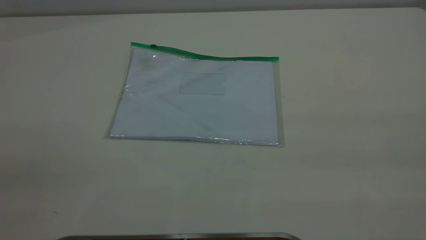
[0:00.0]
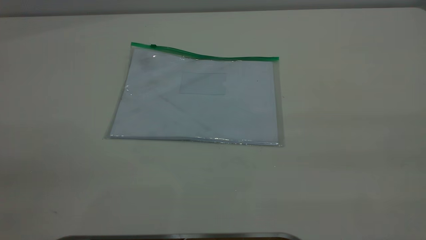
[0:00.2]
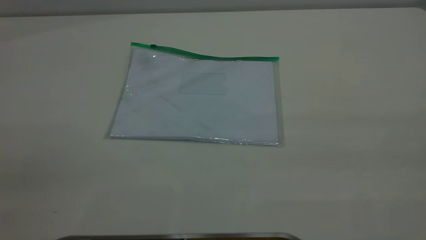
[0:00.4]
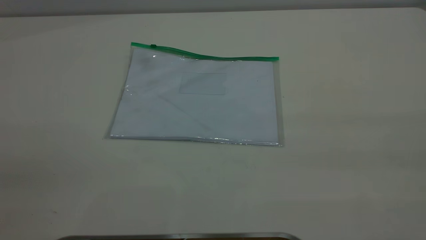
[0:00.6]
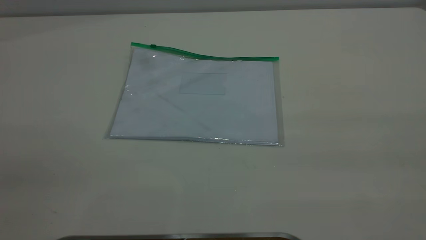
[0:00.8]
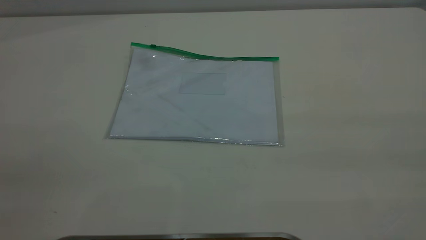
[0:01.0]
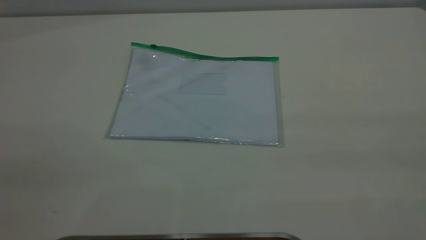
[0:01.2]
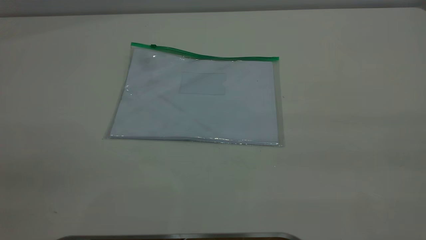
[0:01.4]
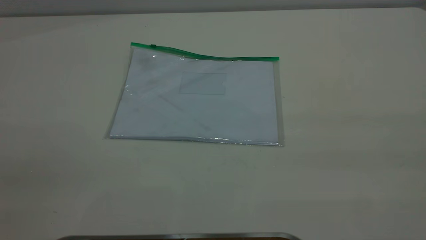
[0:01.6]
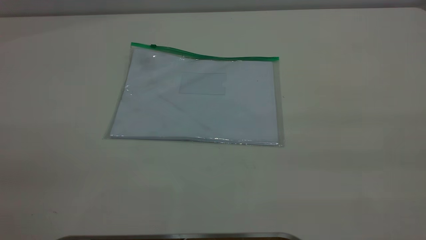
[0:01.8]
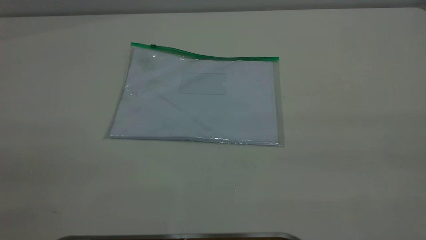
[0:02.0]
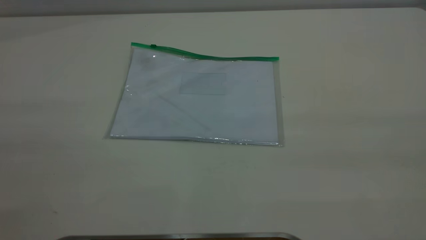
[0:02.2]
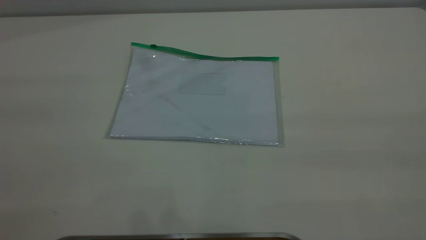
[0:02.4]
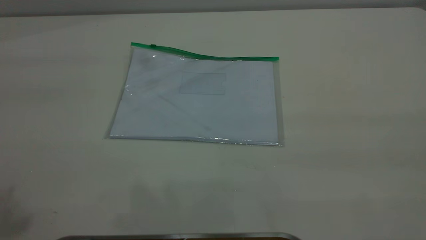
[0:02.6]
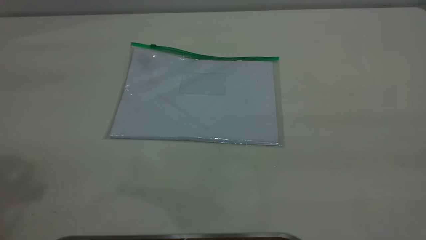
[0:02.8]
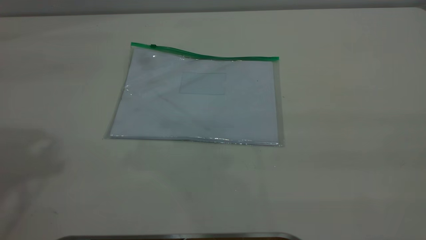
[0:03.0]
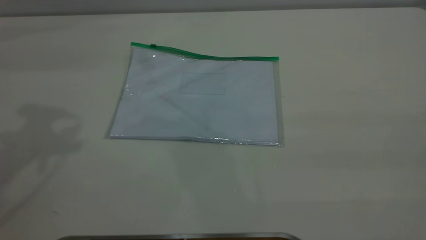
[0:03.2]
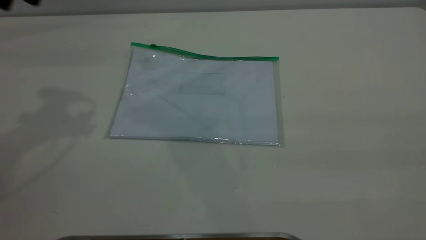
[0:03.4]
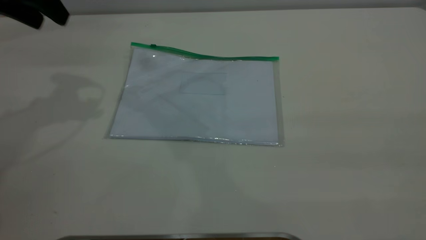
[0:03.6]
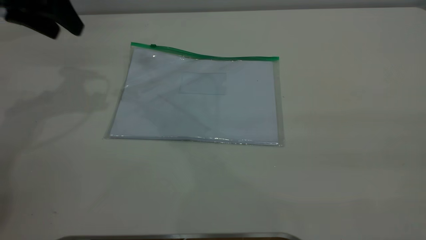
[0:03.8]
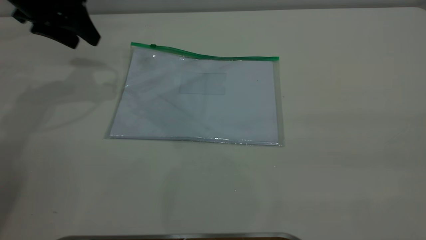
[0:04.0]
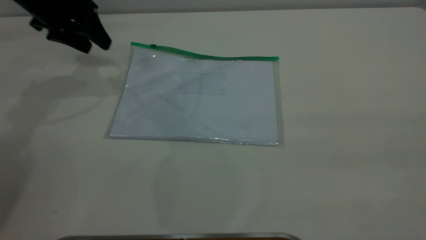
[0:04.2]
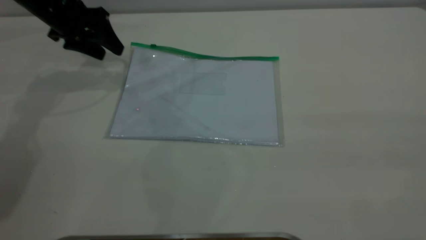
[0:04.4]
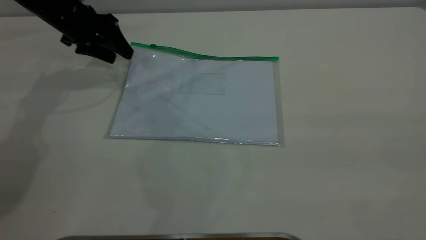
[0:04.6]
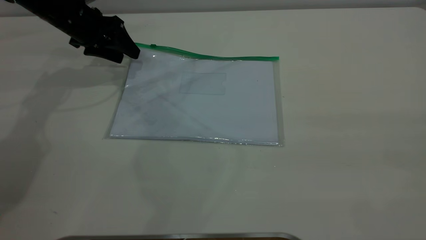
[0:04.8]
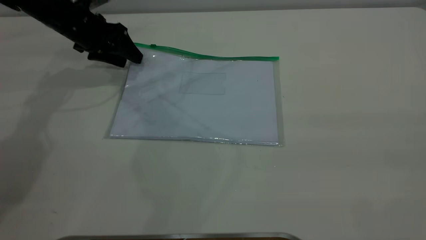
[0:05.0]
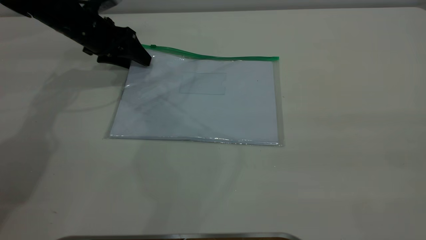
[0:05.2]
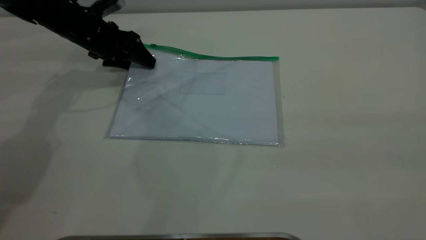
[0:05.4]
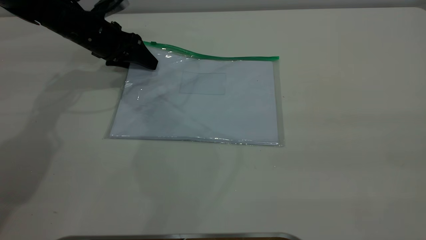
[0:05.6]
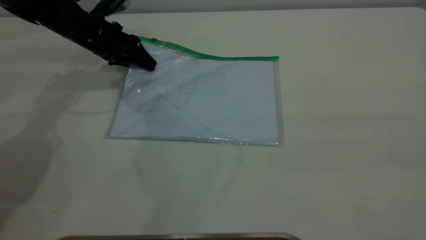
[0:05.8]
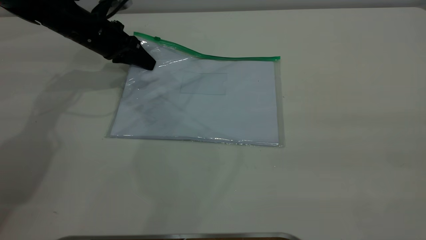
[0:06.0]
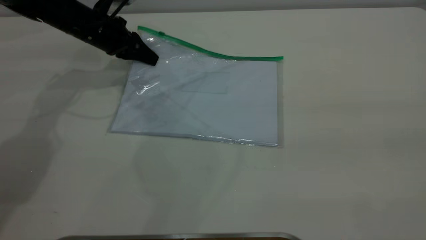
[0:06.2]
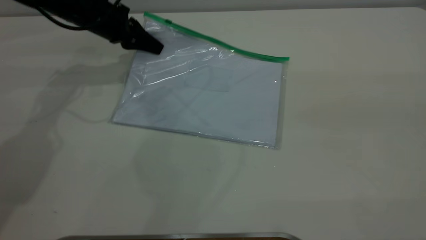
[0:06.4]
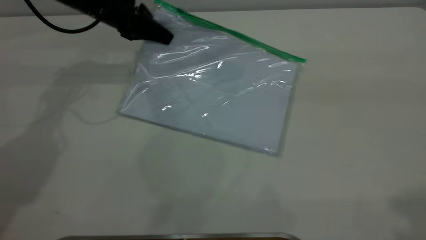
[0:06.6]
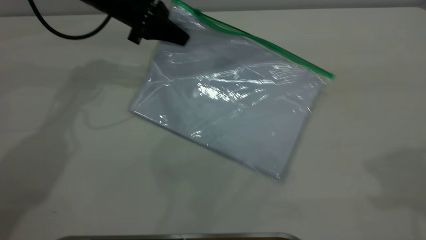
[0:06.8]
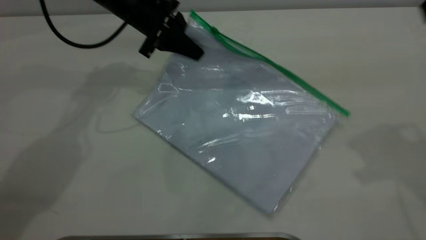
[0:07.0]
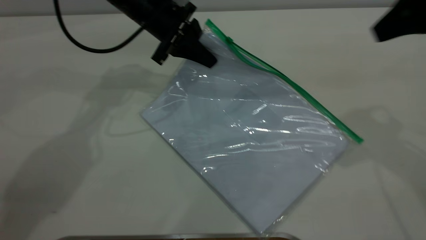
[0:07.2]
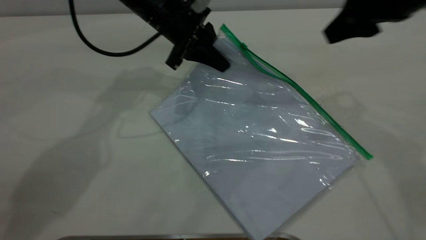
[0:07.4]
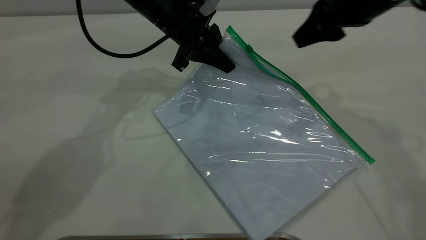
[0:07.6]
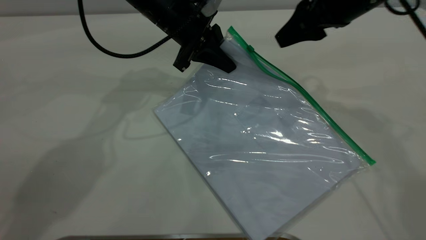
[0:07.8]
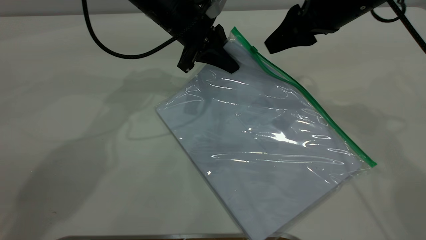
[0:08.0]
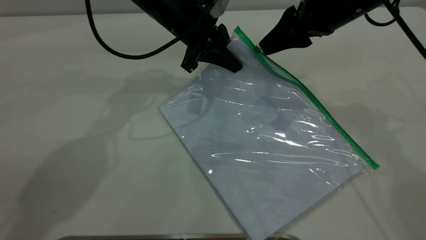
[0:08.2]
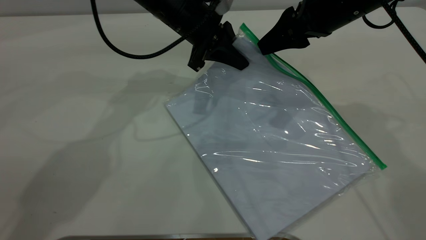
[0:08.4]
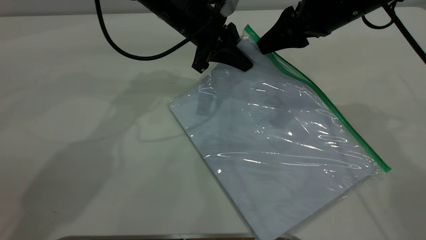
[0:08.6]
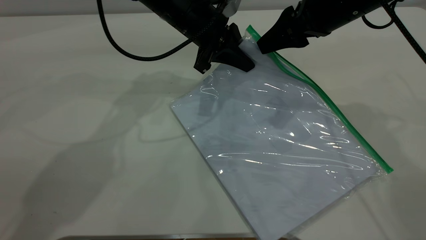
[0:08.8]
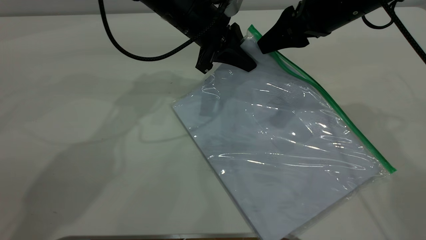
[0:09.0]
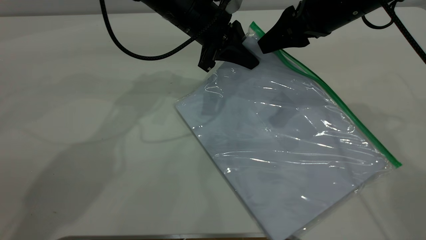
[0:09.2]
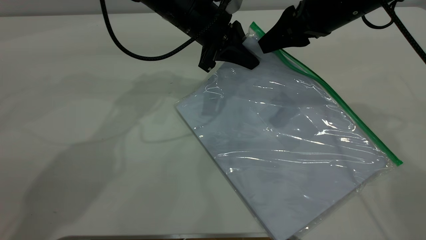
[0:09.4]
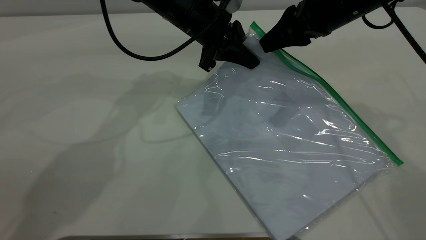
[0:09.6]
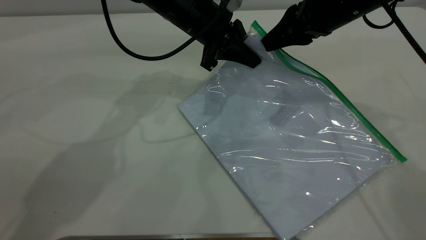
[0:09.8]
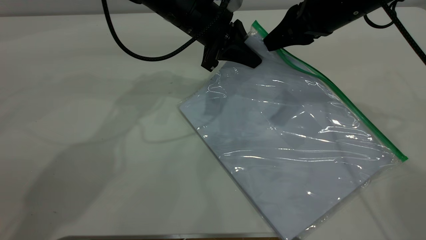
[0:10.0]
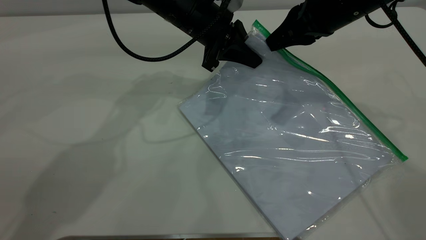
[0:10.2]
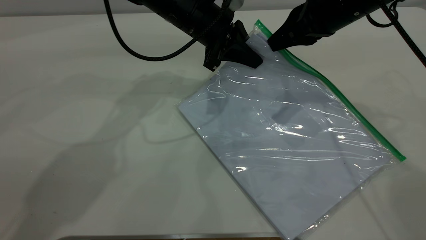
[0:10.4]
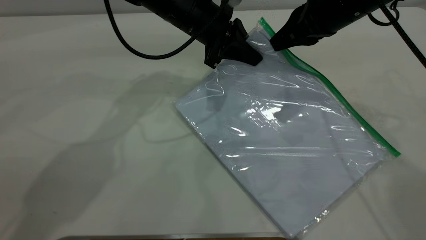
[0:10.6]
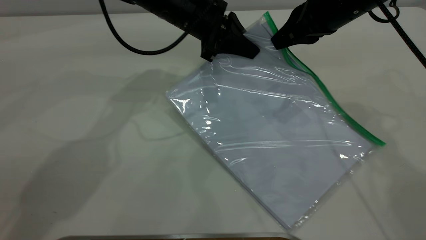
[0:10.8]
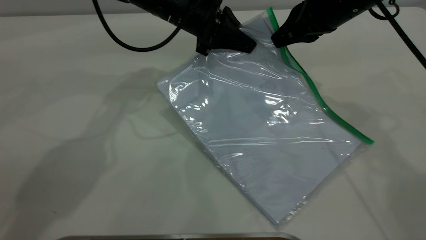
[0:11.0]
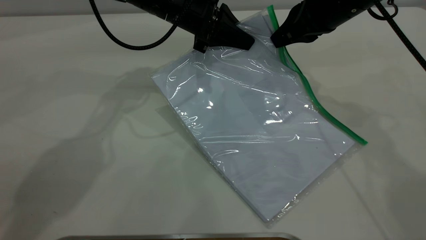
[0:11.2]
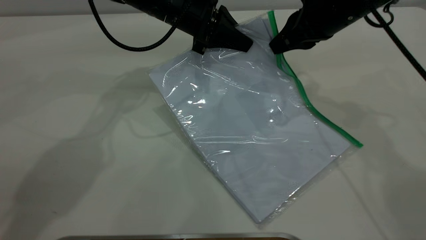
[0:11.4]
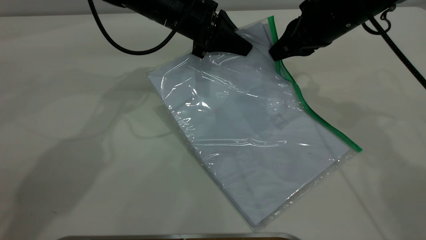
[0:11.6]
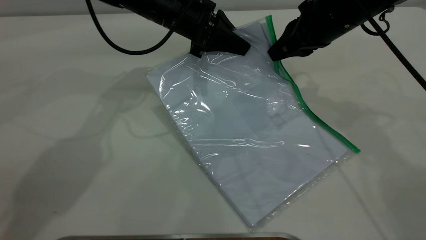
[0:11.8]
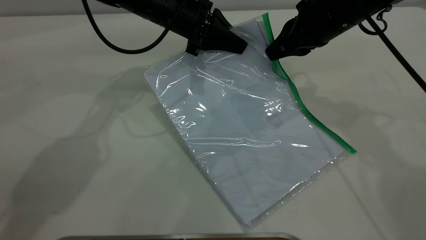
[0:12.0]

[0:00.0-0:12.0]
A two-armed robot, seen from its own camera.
Step, 0:00.0 to 0:06.6: Pick up the transparent plastic bag with the left gripper.
0:00.0 to 0:01.6: The two grippers keep their place.
0:03.0 to 0:04.4: The left gripper travels downward and forward by about 30 cm.
0:04.4 to 0:06.0: The left gripper shifts some 5 cm downward, and closes up.
0:06.0 to 0:07.6: The left gripper is displaced to the right by roughly 15 cm, while the right gripper heads forward and downward, covering some 40 cm.
0:07.6 to 0:09.0: There are only small adjustments of the grippers.
0:09.0 to 0:10.4: The right gripper closes up.
0:10.4 to 0:12.0: There are only small adjustments of the grippers.

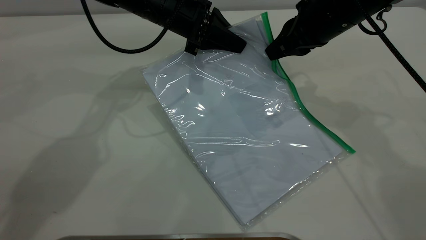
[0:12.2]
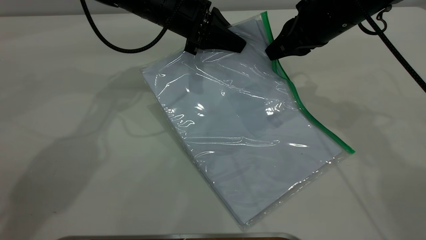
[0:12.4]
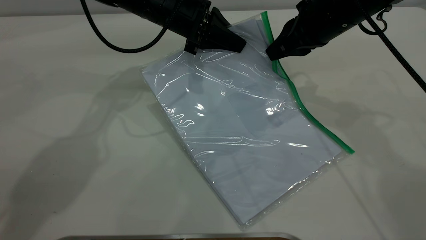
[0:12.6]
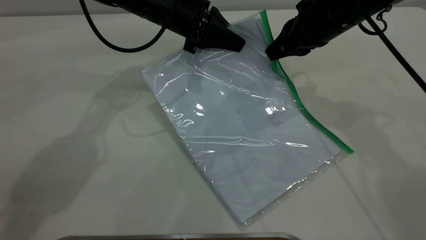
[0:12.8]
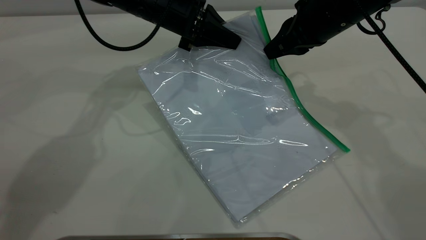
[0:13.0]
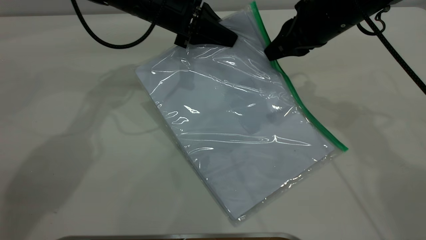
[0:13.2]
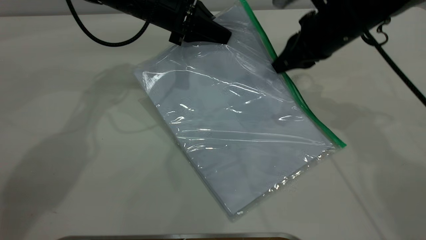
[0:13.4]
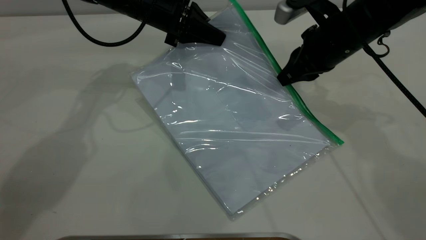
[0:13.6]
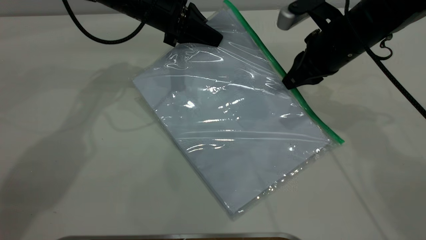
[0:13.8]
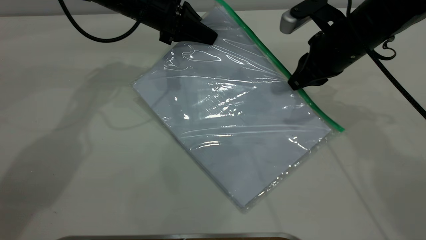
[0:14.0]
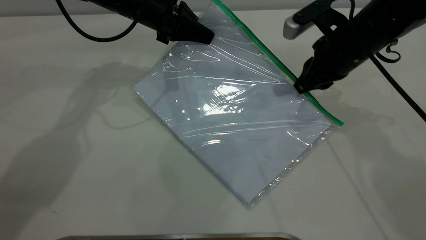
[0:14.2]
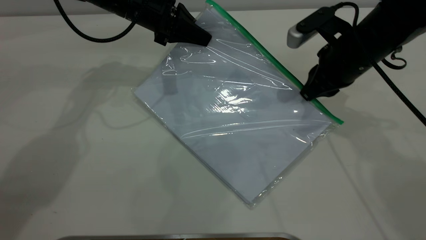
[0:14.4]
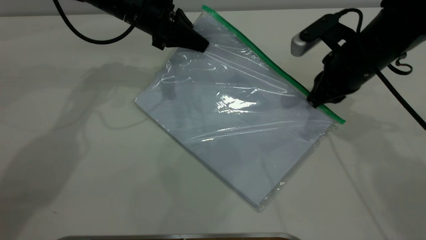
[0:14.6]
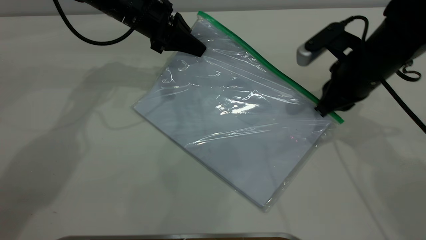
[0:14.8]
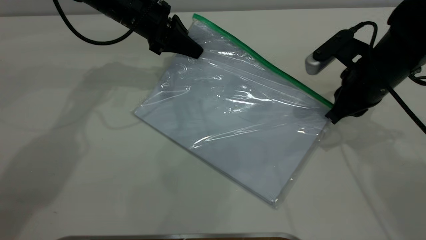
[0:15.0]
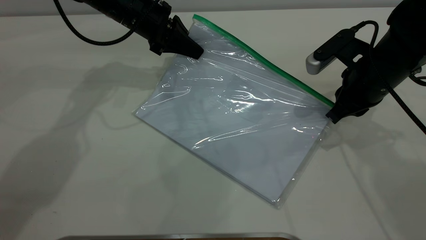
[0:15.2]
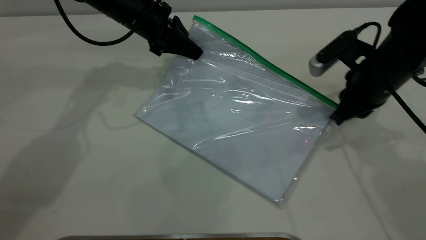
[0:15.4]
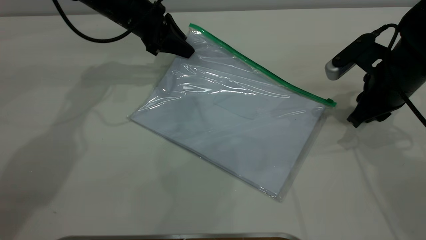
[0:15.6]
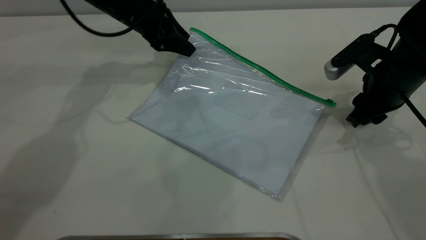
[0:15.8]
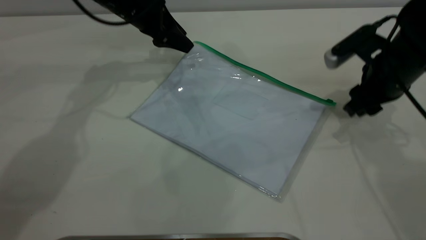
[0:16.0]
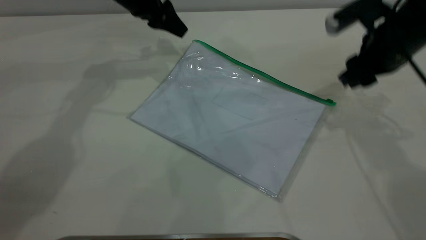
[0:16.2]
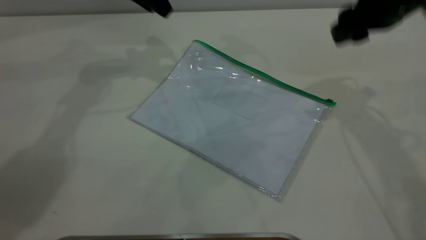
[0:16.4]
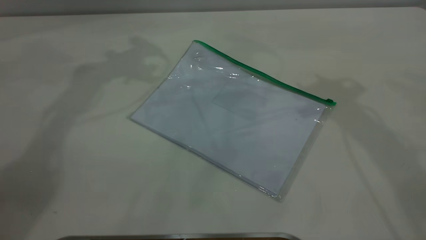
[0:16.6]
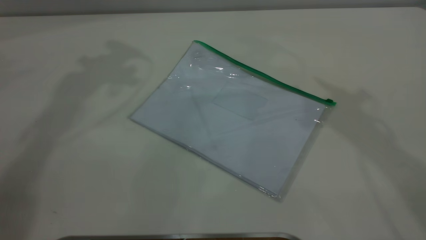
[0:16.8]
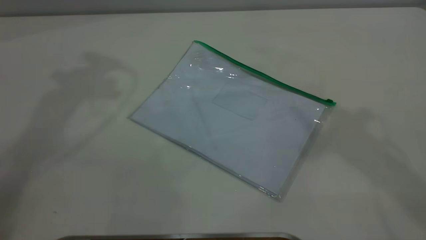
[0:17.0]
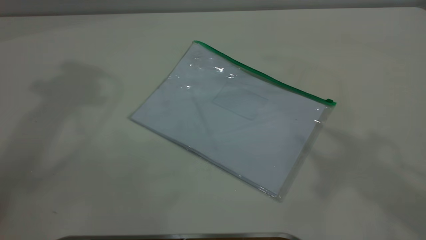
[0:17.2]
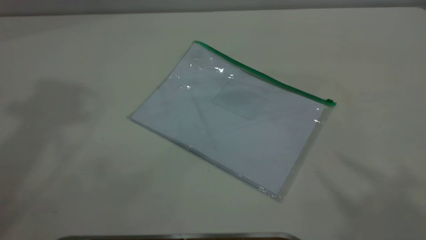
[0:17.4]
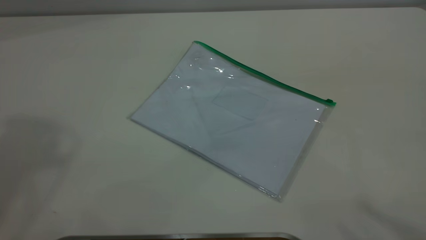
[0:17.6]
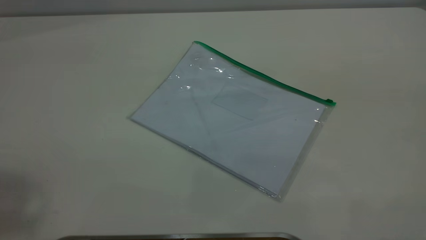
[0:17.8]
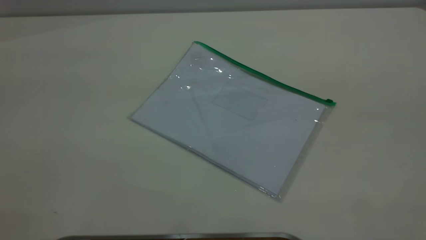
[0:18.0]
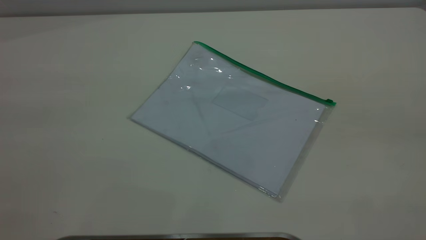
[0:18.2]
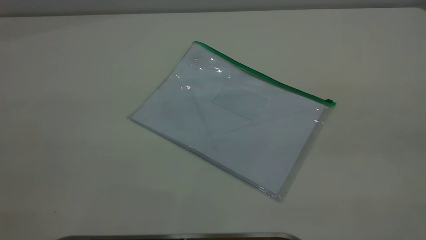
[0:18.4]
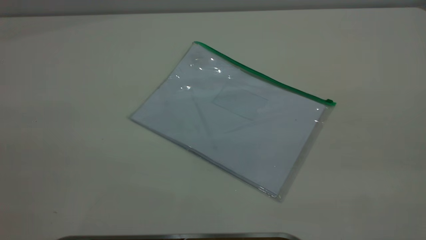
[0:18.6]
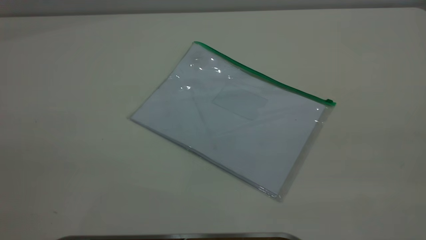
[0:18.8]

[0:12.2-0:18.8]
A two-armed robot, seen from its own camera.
Step, 0:12.2 to 0:15.4: Pulling up the zipper on the transparent plastic bag with the right gripper to close it.
Step, 0:15.6 to 0:16.2: Place the transparent plastic bag.
0:12.2 to 0:13.8: The grippers stay close to where they were, moving slightly.
0:13.8 to 0:15.4: The right gripper ends up roughly 5 cm from where it was.
0:15.4 to 0:17.2: The two grippers go about 40 cm upward. The right gripper opens up, while the left gripper opens.
